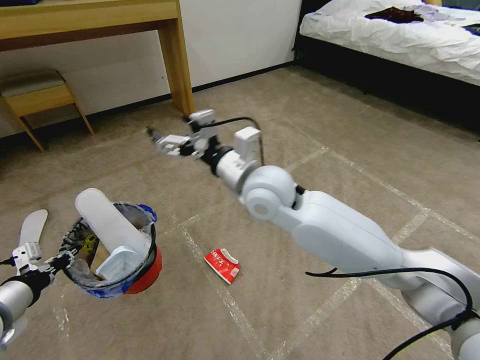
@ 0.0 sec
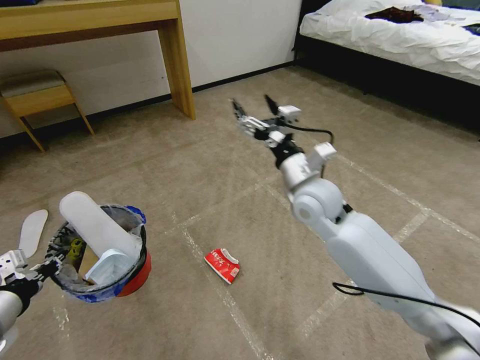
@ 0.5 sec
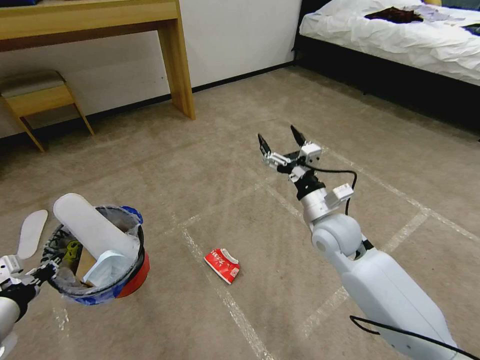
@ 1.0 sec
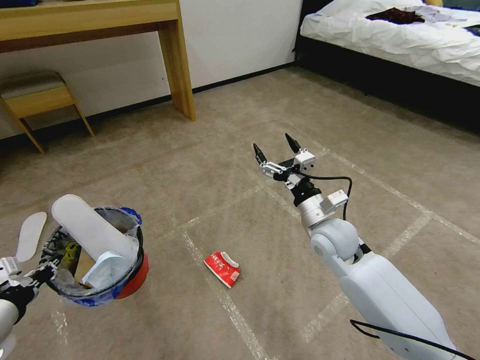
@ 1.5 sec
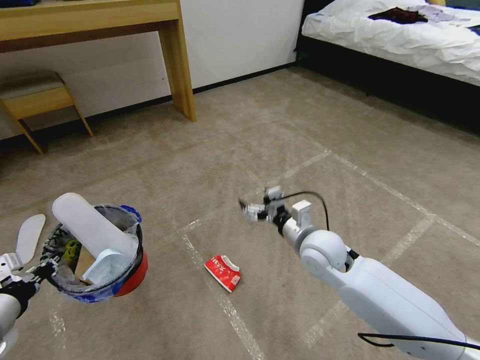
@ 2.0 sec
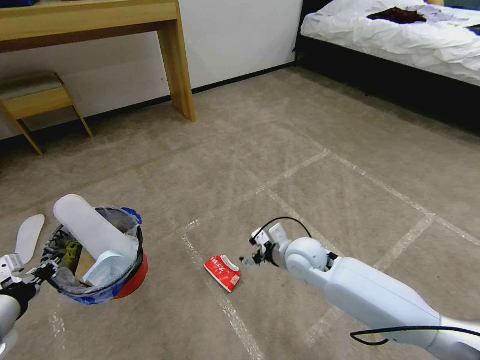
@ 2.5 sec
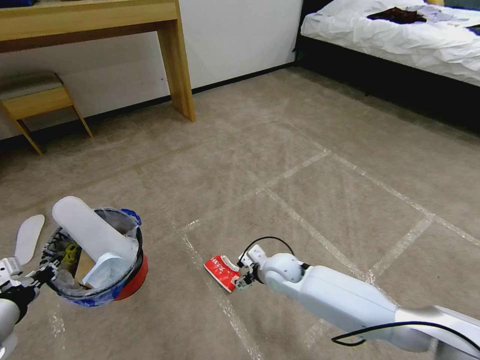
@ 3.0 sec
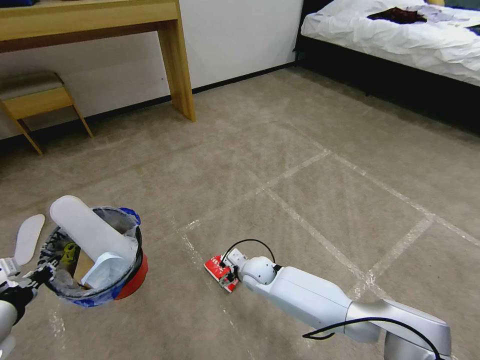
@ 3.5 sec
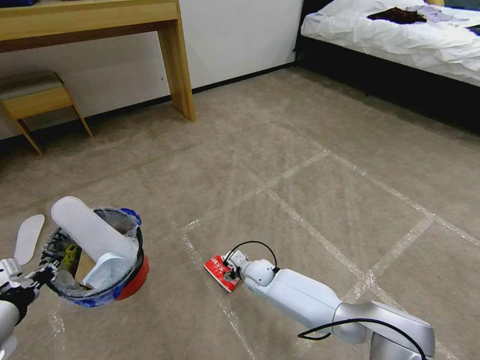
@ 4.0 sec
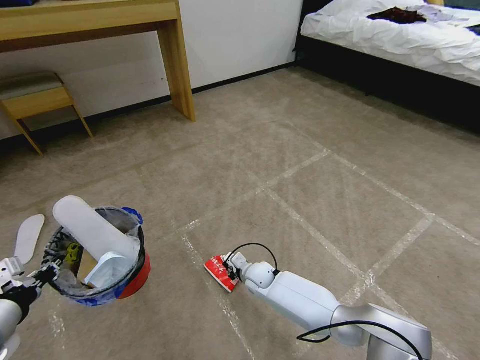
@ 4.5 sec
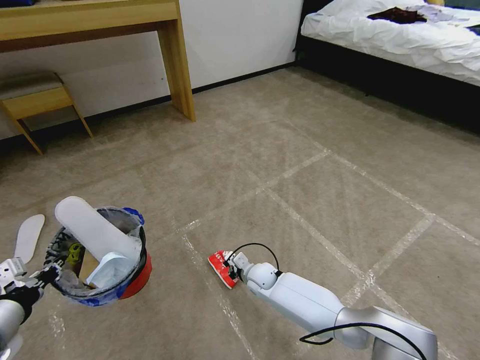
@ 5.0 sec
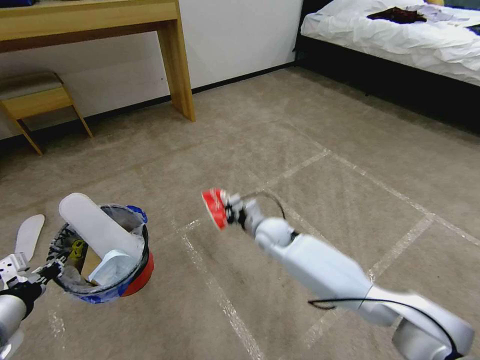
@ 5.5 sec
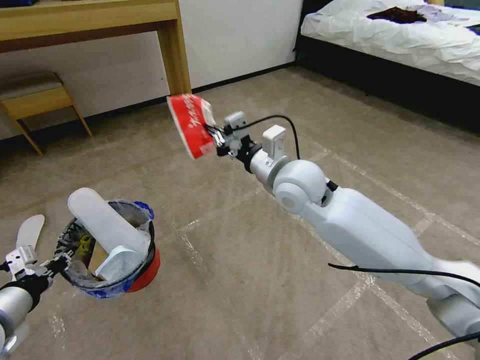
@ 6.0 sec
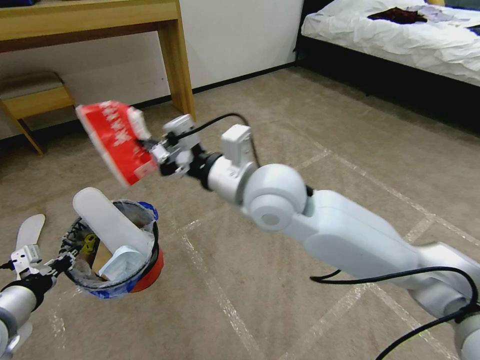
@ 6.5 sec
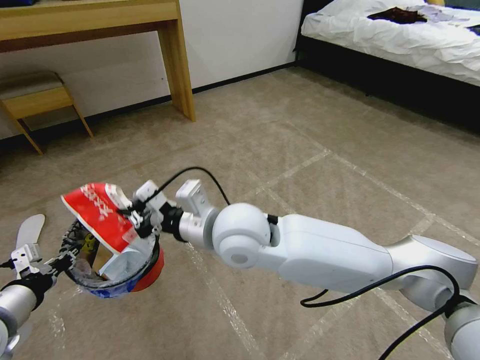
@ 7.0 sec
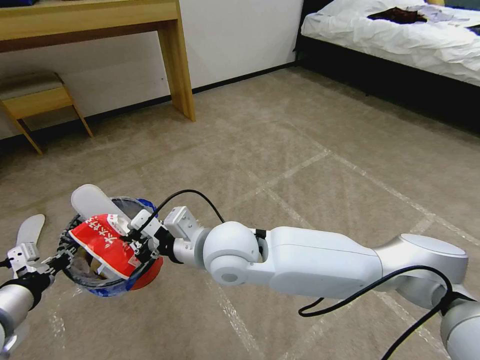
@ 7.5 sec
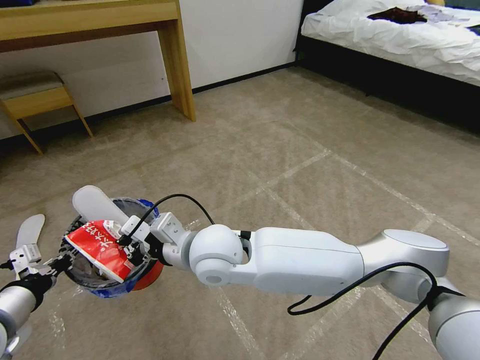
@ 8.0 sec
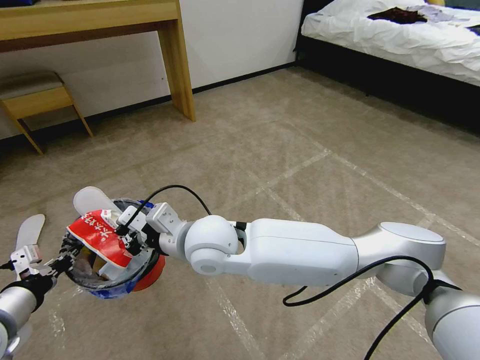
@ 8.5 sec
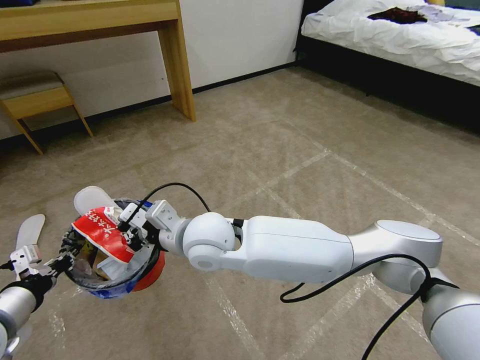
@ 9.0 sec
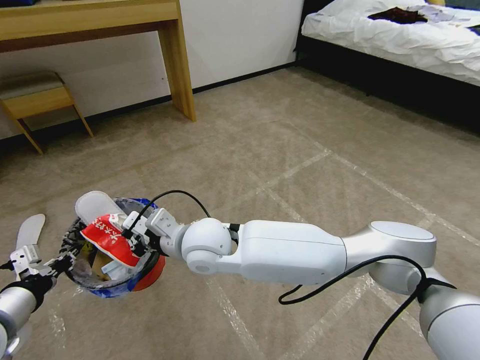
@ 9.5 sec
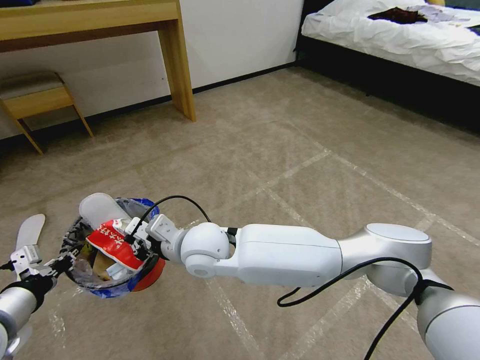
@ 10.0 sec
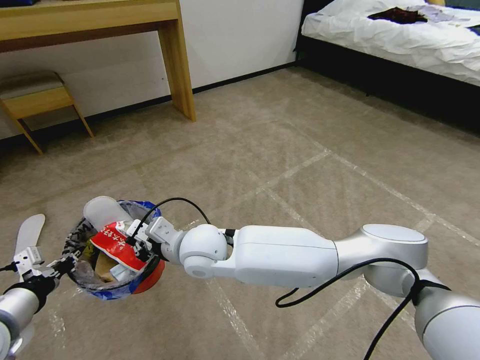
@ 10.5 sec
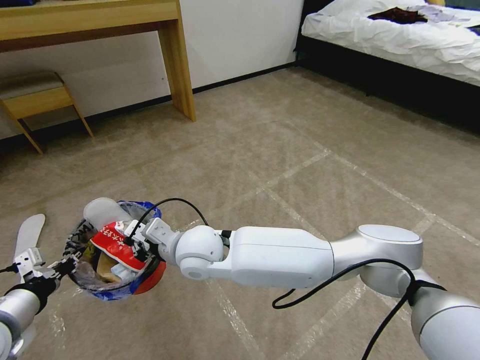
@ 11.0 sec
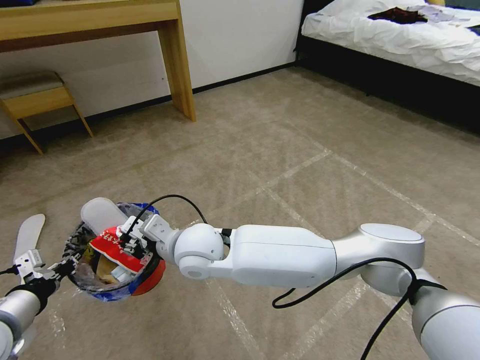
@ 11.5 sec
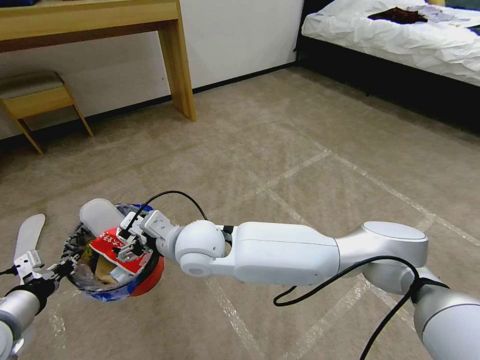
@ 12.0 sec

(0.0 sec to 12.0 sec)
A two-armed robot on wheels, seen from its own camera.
Task of the whole recording: Pick up the trash bin and place the garbage on the floor into it.
0.0 sec - 2.0 sec: The right gripper heads downward and to the right, covering approximately 20 cm.
2.0 sec - 4.0 sec: The right gripper heads downward and to the left, covering some 25 cm.
4.0 sec - 6.0 sec: The right gripper is displaced upward by roughly 40 cm, and closes its fingers.
6.0 sec - 8.0 sec: The right gripper heads to the left, backward and downward, covering some 20 cm.
8.0 sec - 10.0 sec: The right gripper ends up about 5 cm from where it was.
10.0 sec - 12.0 sec: The right gripper opens up.

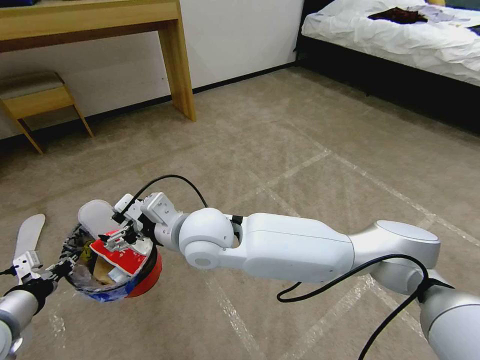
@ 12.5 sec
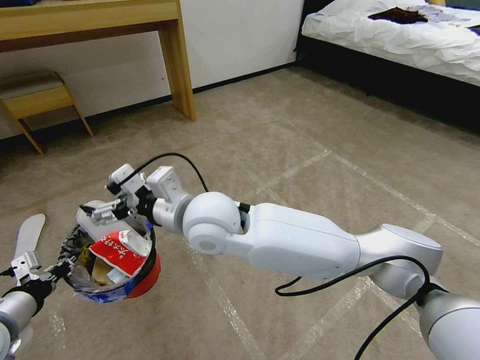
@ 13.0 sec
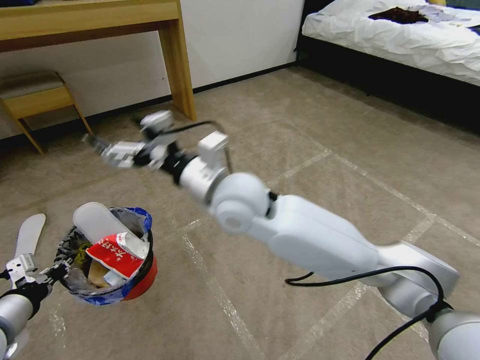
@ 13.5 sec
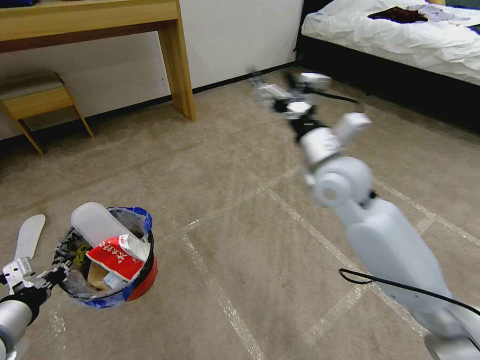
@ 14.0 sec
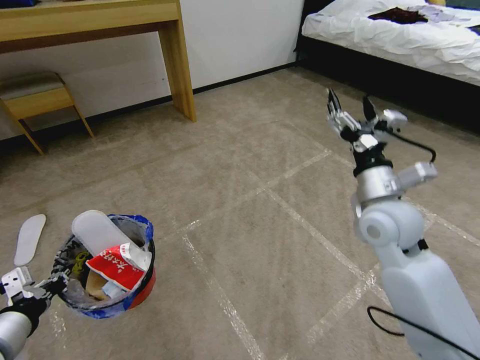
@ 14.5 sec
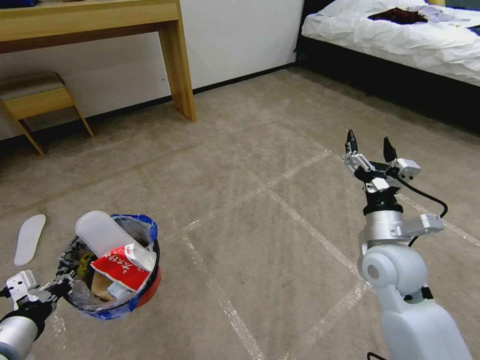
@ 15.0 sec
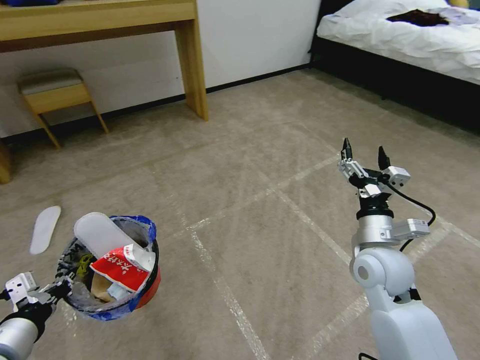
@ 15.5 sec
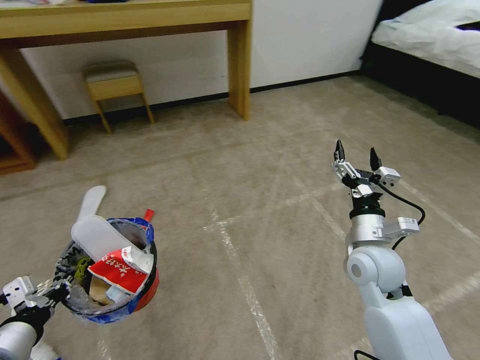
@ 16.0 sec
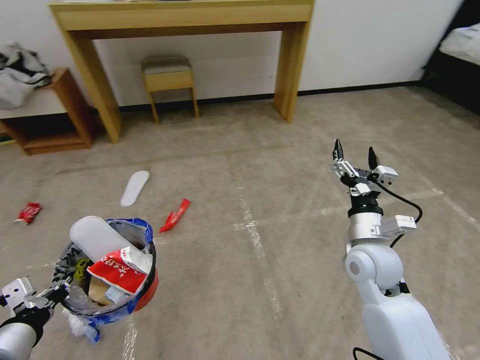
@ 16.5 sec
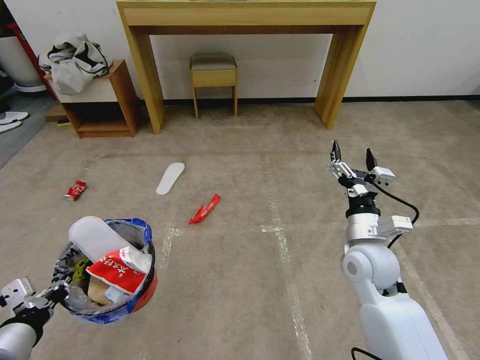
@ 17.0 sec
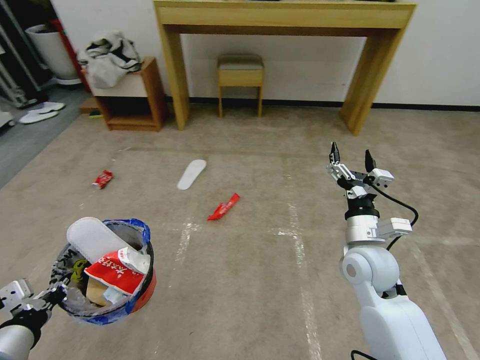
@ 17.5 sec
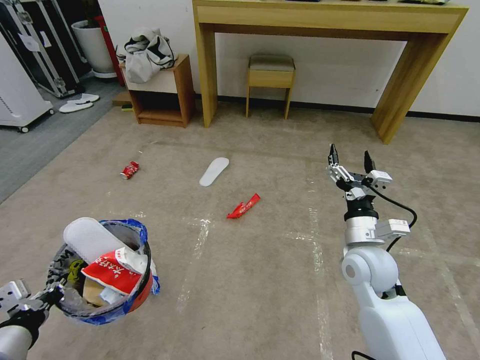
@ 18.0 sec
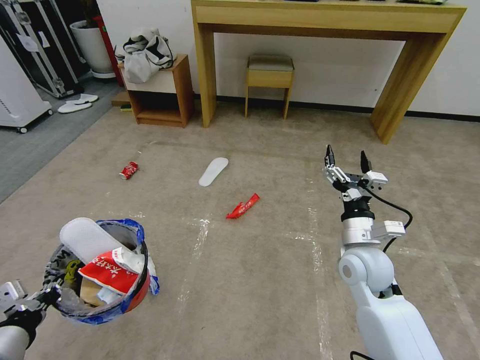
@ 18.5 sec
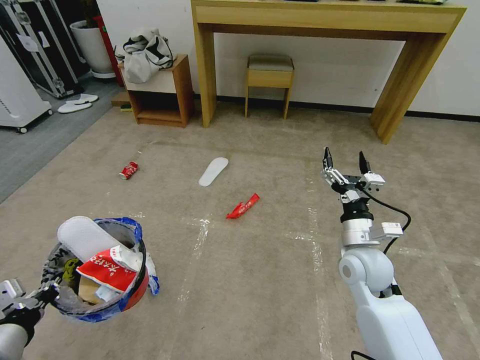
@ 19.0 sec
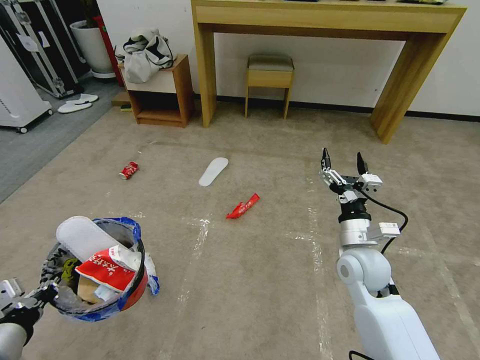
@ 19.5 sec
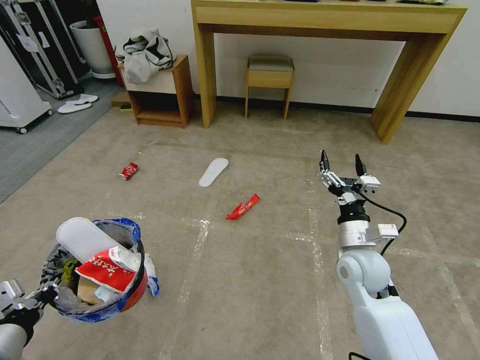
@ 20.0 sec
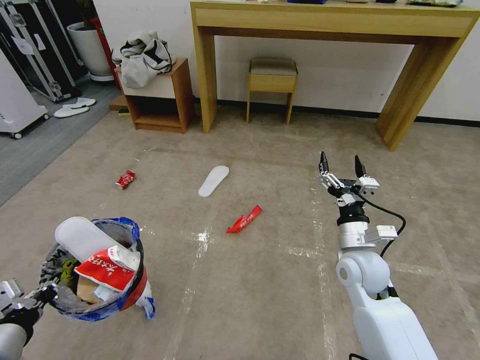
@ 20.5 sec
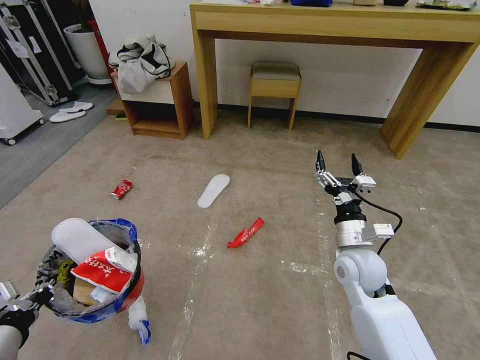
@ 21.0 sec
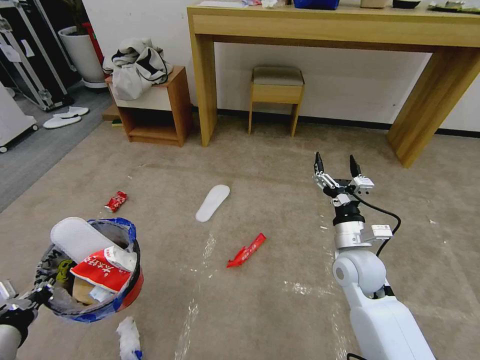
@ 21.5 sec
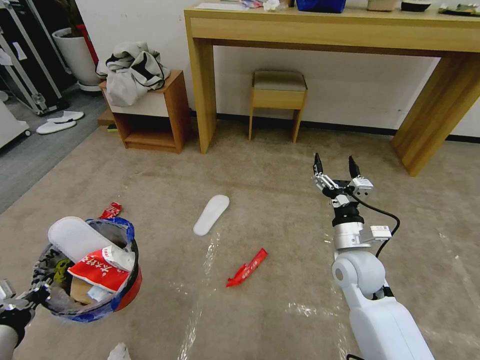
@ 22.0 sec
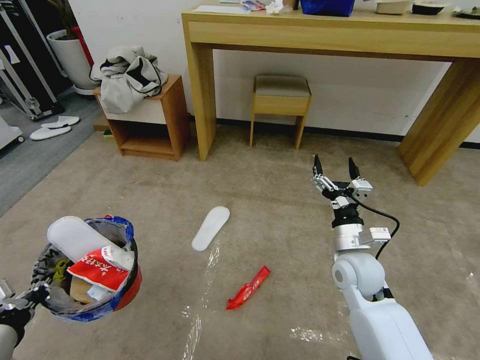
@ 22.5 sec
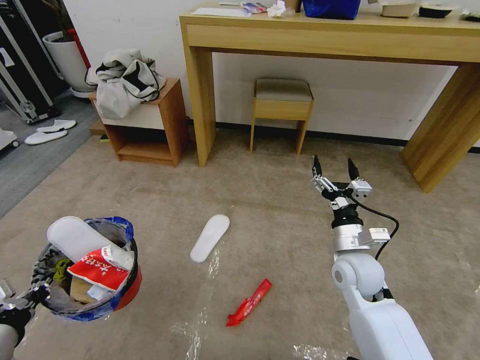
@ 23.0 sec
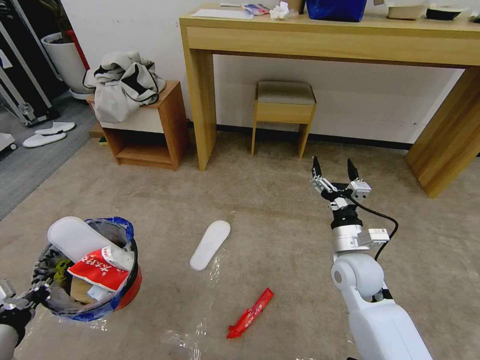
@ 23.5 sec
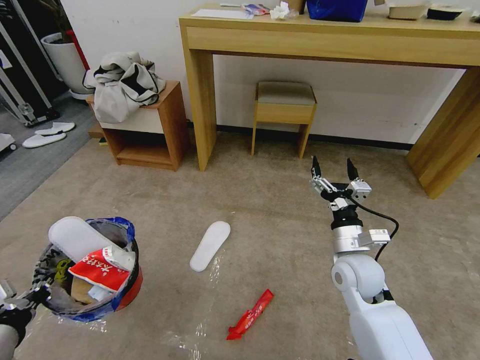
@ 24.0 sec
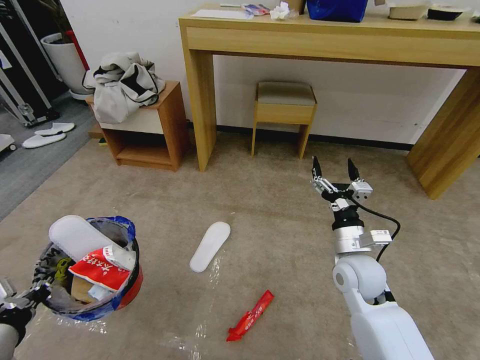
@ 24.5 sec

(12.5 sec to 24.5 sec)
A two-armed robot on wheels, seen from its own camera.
Task of the whole recording: Pick up the trash bin and place the garbage on the floor into it.
12.5 sec - 14.5 sec: The right gripper travels to the right by roughly 35 cm.
14.5 sec - 16.5 sec: The right gripper travels downward by about 10 cm.

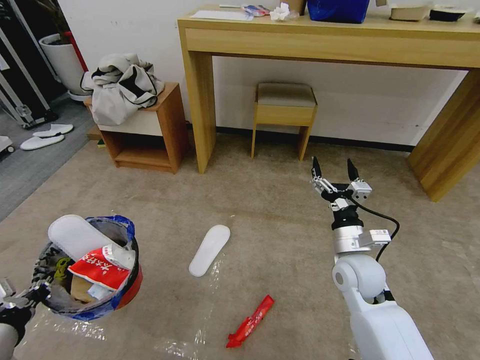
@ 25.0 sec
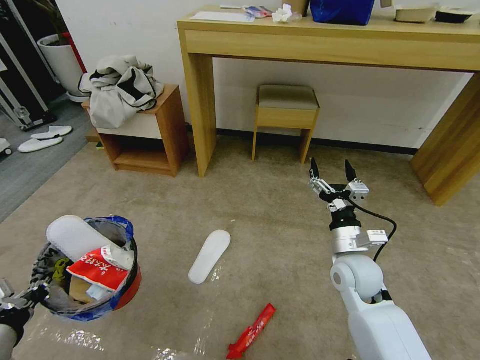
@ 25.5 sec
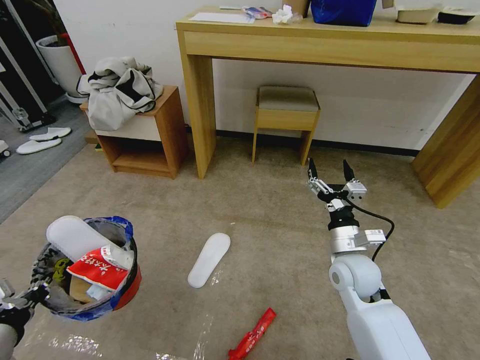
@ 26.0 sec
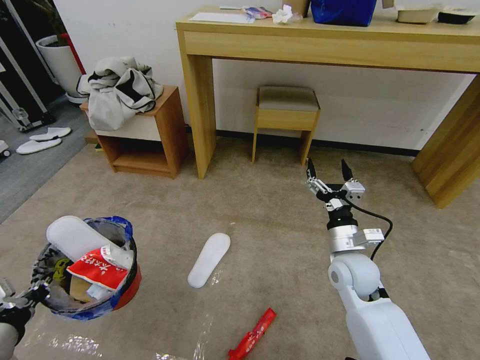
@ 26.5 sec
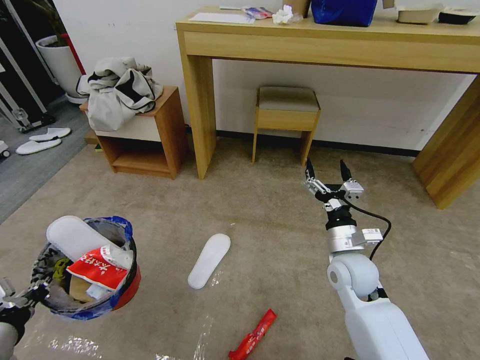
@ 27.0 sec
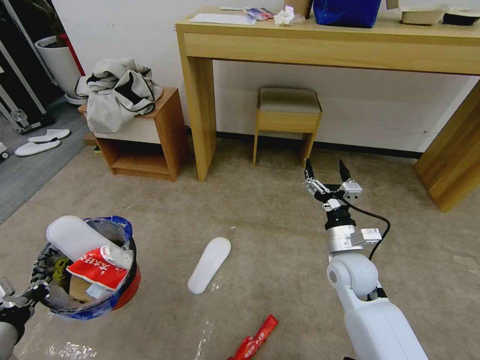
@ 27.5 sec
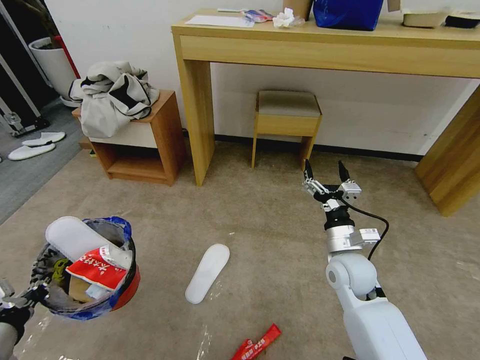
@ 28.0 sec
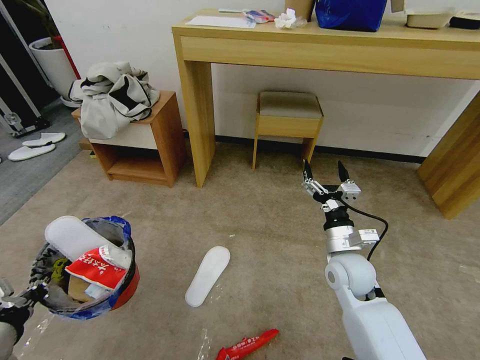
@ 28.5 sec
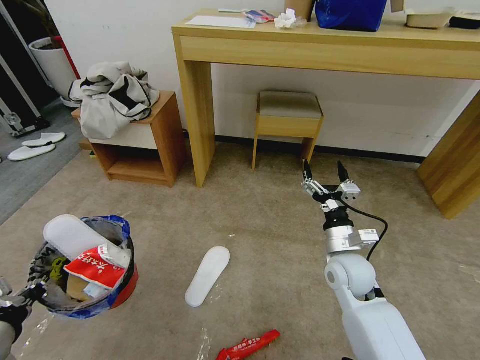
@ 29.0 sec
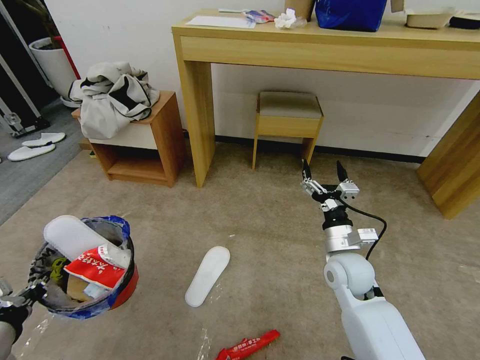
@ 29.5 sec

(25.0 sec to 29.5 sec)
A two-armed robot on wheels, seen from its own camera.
Task of the whole recording: Pick up the trash bin and place the garbage on the floor into it.
25.0 sec - 27.0 sec: Both grippers stay about where they are.
